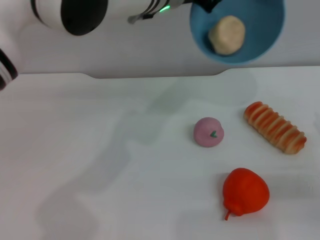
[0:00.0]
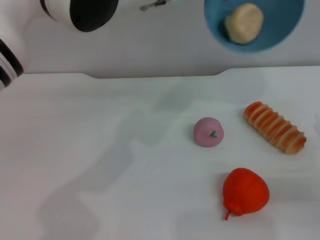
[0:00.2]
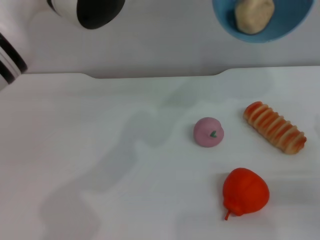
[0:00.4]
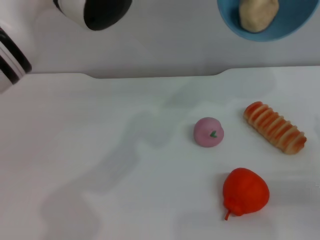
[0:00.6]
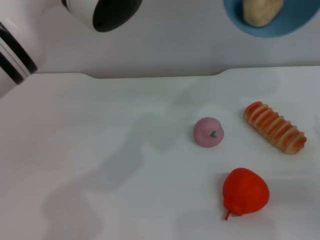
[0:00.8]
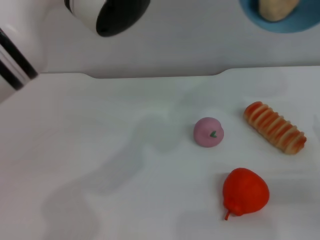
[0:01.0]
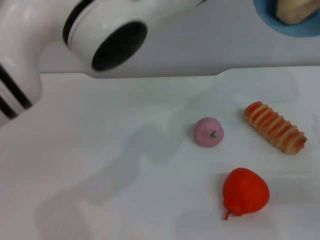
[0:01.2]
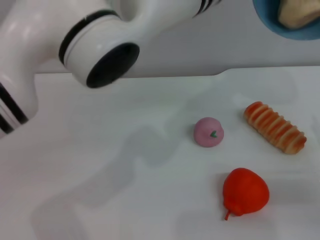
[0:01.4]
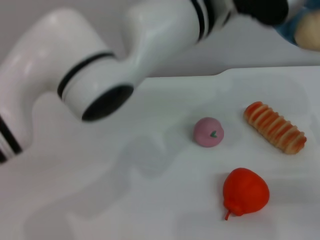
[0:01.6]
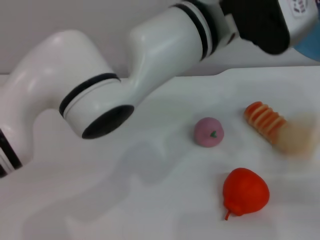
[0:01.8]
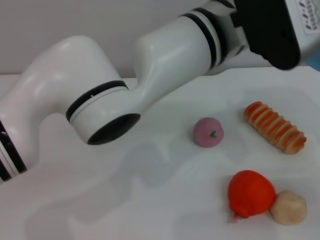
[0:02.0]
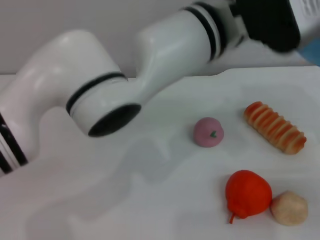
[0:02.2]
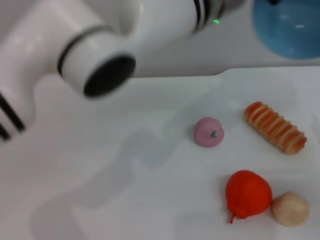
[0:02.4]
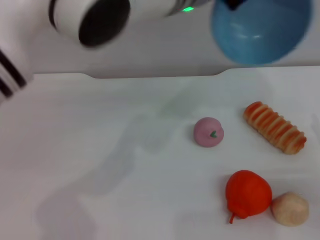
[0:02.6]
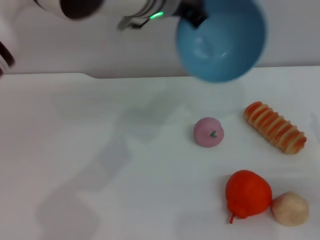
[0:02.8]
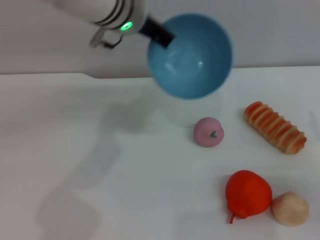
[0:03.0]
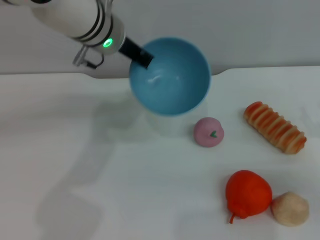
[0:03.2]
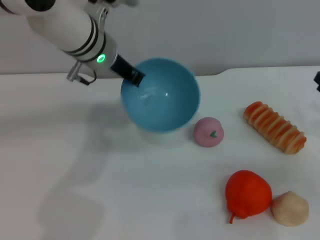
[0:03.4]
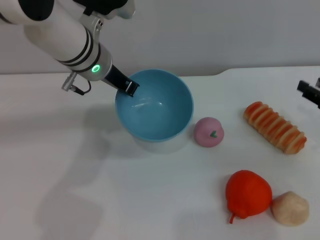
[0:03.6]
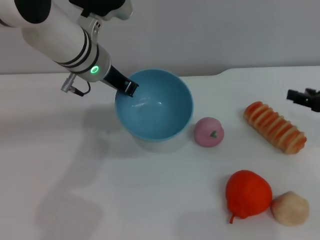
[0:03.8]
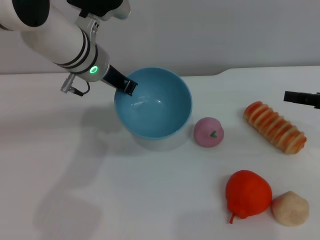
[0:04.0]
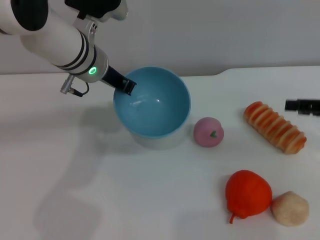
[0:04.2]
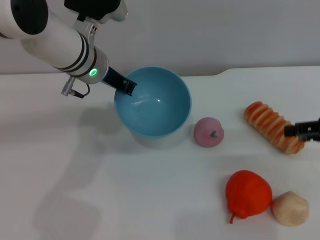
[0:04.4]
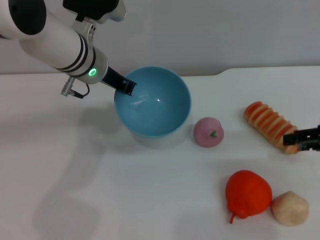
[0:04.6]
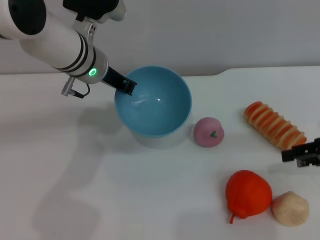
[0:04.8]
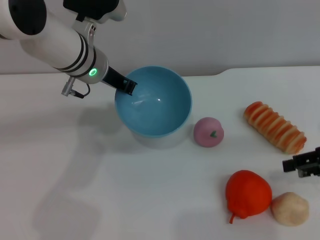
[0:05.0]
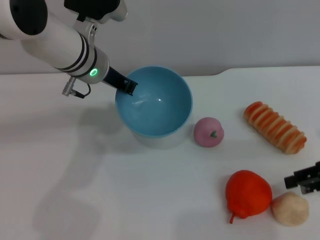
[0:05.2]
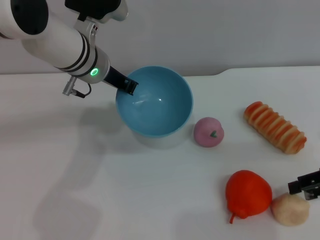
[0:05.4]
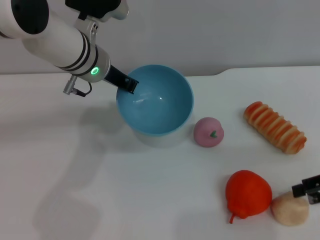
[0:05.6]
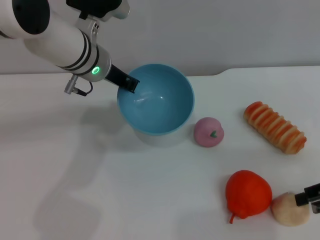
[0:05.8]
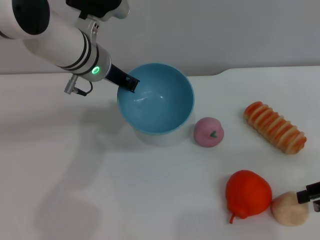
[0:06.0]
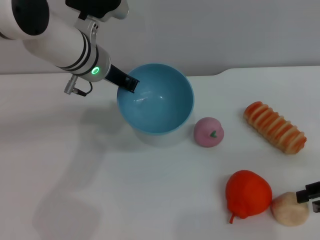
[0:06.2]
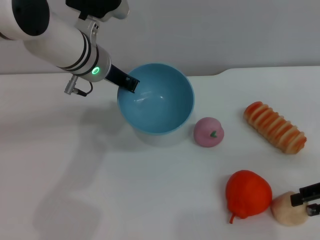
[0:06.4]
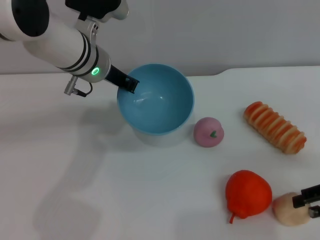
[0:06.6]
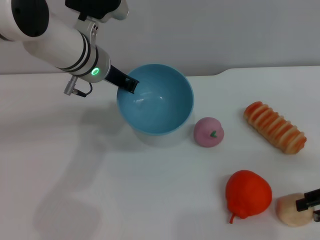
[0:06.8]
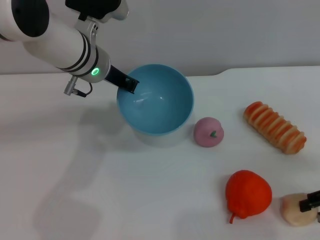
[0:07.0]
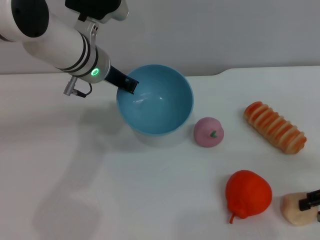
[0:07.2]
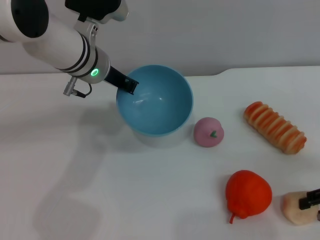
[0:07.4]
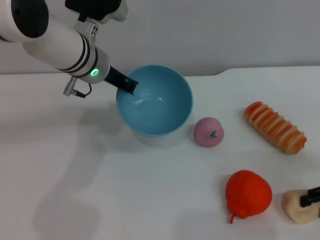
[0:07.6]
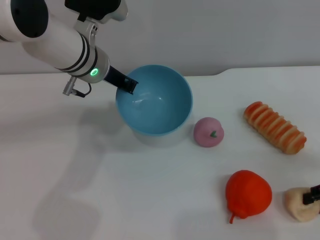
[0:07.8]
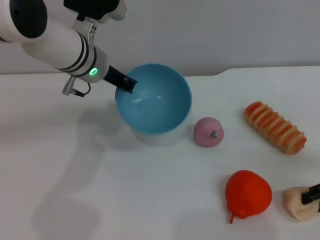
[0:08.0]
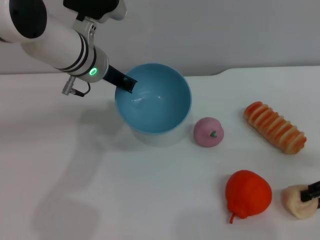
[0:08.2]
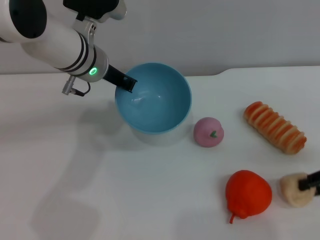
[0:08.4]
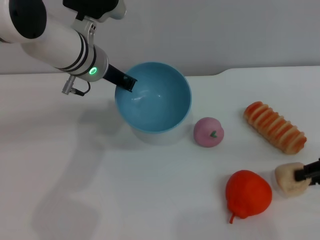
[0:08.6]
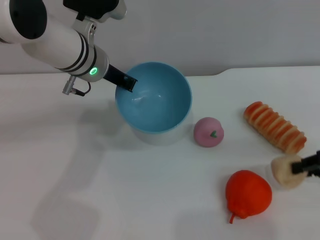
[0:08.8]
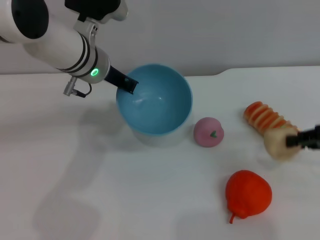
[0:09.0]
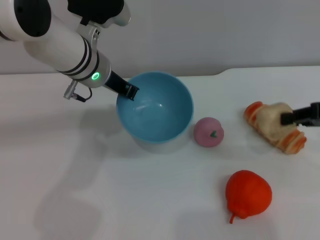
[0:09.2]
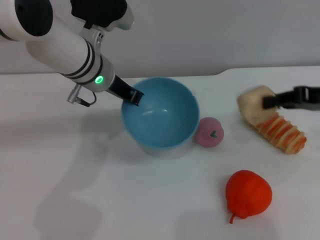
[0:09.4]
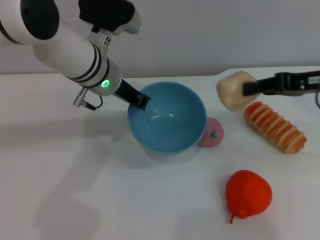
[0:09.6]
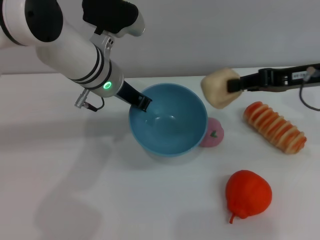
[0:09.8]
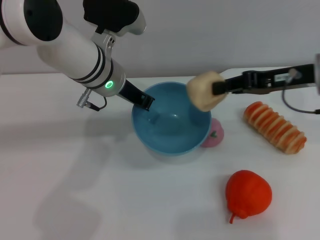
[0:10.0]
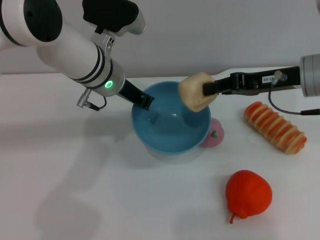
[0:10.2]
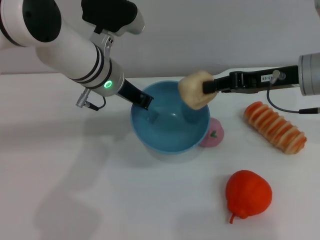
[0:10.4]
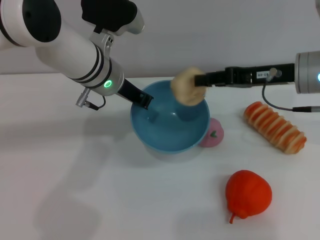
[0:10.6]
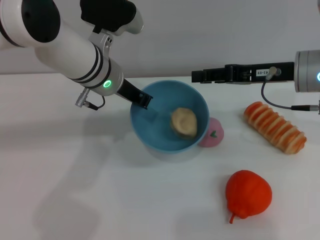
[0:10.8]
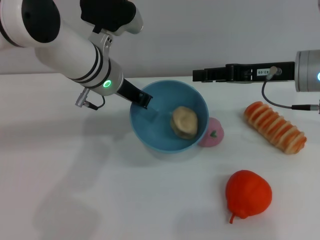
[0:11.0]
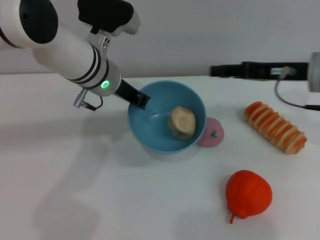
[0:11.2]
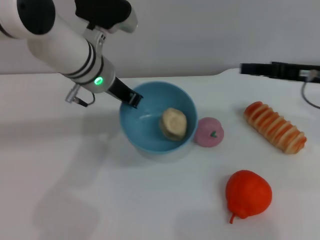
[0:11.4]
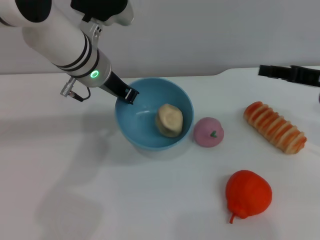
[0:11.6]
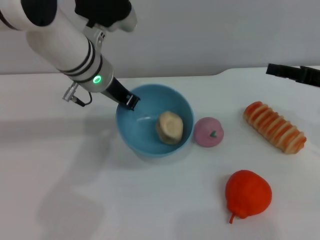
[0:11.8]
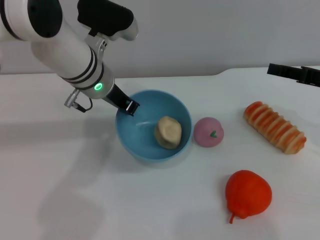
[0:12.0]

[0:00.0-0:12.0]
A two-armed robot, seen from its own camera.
Task of the whole recording: put the egg yolk pastry into the blue bowl and pour it out repeatedly.
Step, 0:00.0 to 0:02.4: Pour the egg yolk pastry out of bowl.
Step, 0:02.6 to 0:08.6: Pick up the egg yolk pastry with the right gripper.
Step, 0:08.8 to 0:11.4: Place the egg yolk pastry into the bowl.
0:00.0 to 0:01.6: The left gripper is displaced backward by some 5 cm.
0:01.6 to 0:03.0: The left gripper shifts roughly 10 cm to the left and forward.
0:03.0 to 0:04.4: The right gripper heads upward, covering some 10 cm. The left gripper is displaced downward and to the left by roughly 10 cm.
0:06.0 to 0:07.6: The grippers stay close to where they were, moving slightly.
0:07.6 to 0:09.0: The right gripper travels upward by some 5 cm, and closes.
0:09.0 to 0:10.4: The right gripper shifts some 15 cm to the left and forward.
0:10.4 to 0:12.0: The right gripper travels to the right by roughly 10 cm, and opens up.

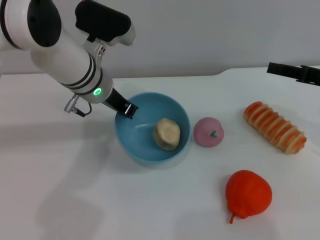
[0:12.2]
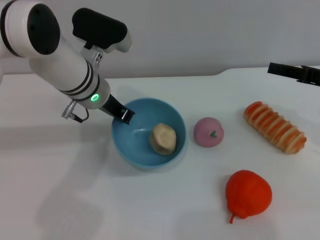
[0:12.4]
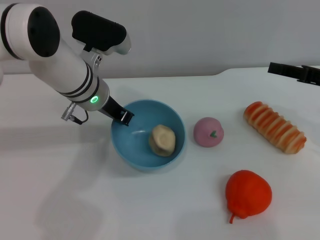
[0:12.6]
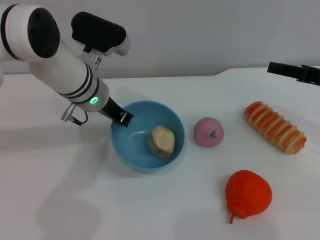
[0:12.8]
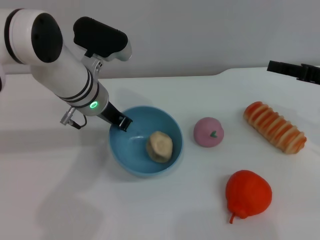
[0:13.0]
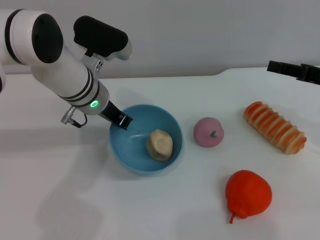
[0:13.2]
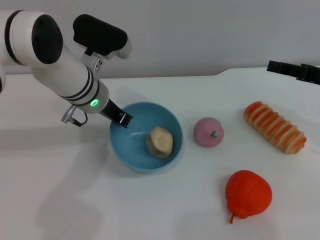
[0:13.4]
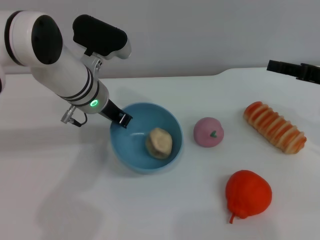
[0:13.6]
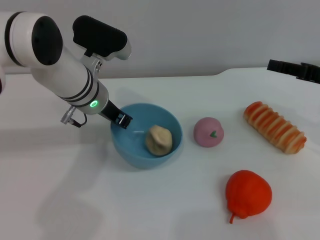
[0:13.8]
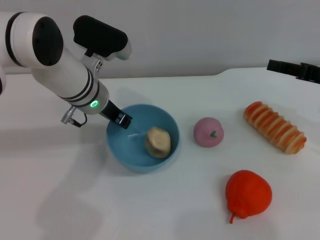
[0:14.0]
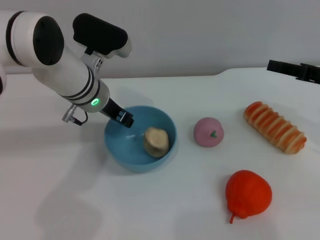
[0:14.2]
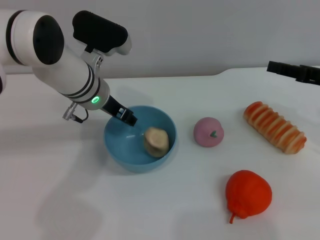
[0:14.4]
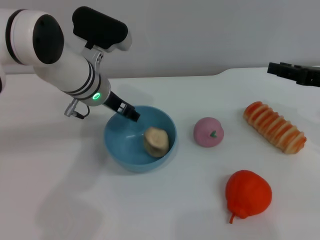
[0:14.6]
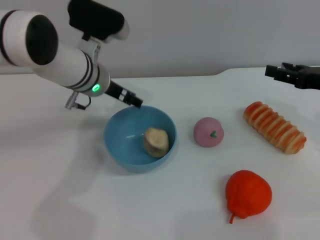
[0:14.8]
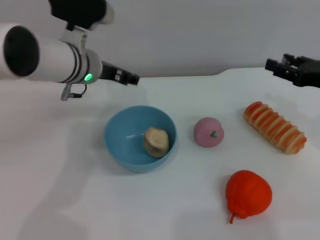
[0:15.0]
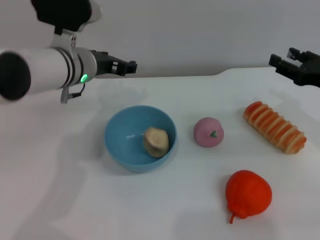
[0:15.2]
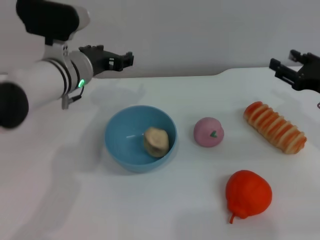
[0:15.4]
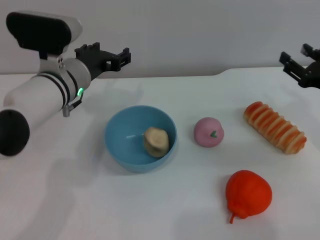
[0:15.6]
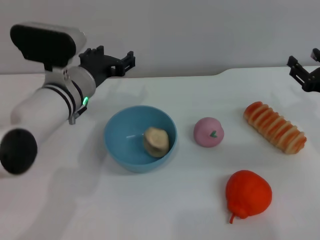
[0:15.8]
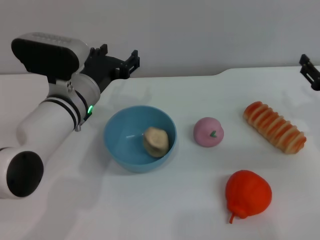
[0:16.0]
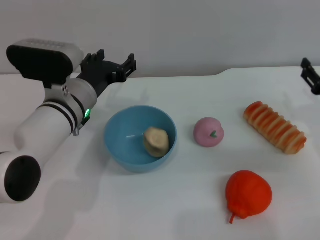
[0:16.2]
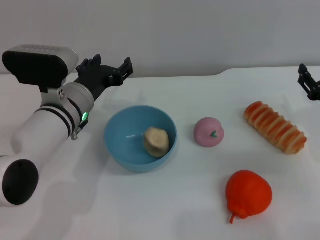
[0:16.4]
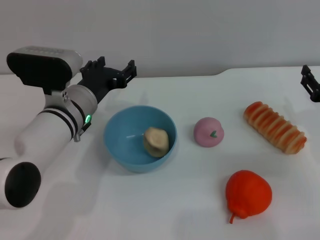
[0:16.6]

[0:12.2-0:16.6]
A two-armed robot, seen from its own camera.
Task of the whole recording: put the egg yolk pastry into the blue bowl and pour it out repeatedly.
Step, 0:12.2 to 0:14.8: Place the bowl on the table.
0:12.2 to 0:13.6: There are only small adjustments of the grippers.
0:13.6 to 0:15.2: The left gripper opens its fingers.
0:15.2 to 0:16.6: The right gripper heads downward, covering about 5 cm; the left gripper goes approximately 10 cm backward and downward.
